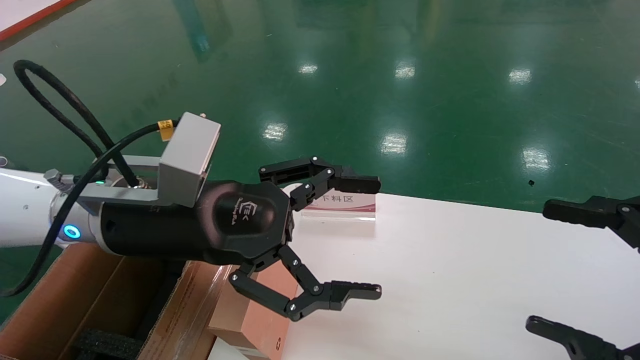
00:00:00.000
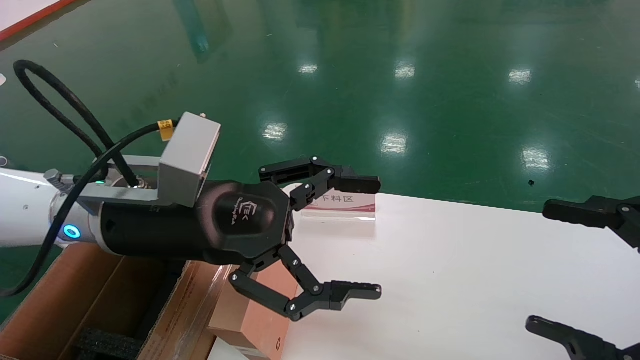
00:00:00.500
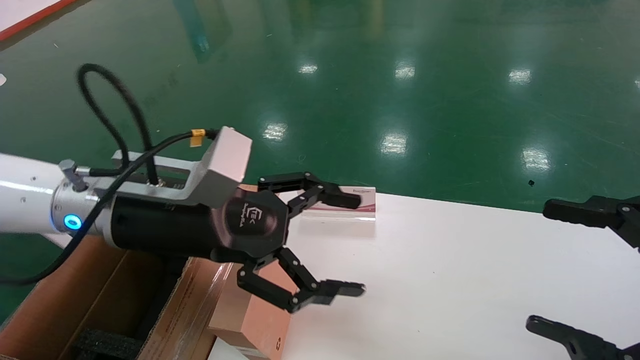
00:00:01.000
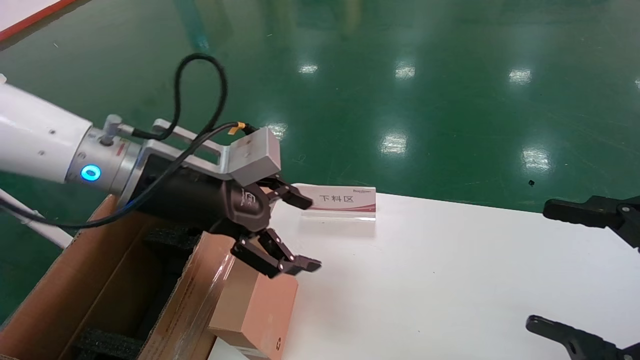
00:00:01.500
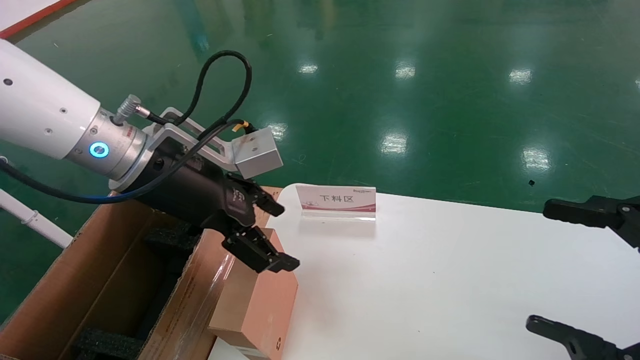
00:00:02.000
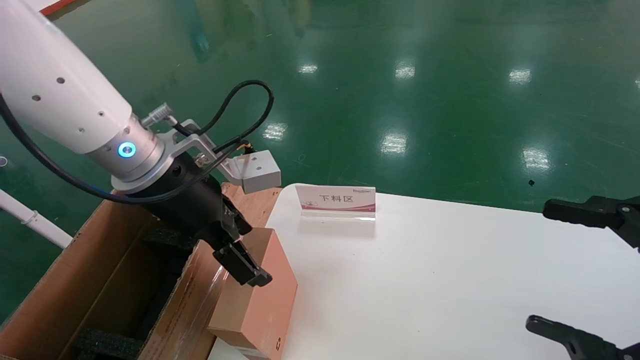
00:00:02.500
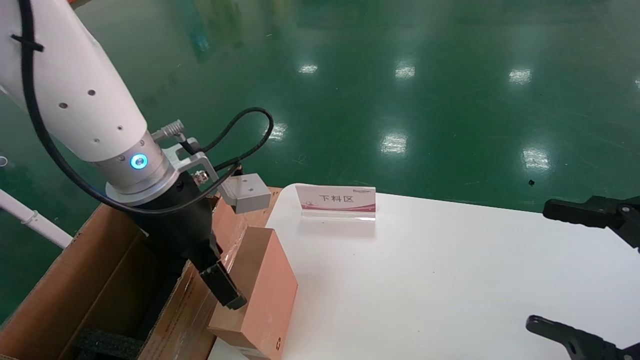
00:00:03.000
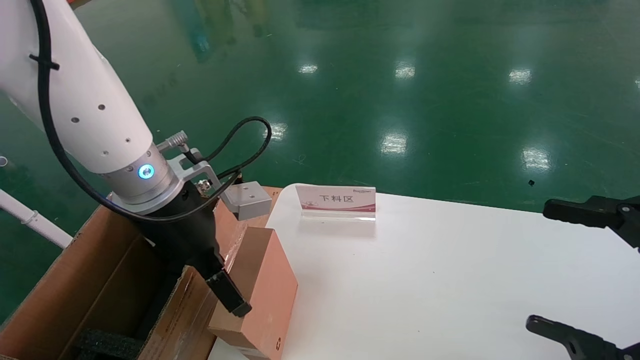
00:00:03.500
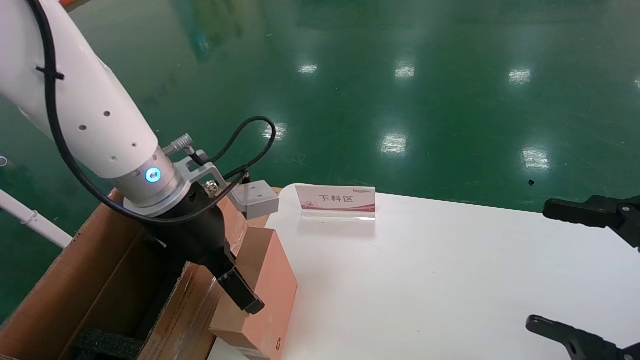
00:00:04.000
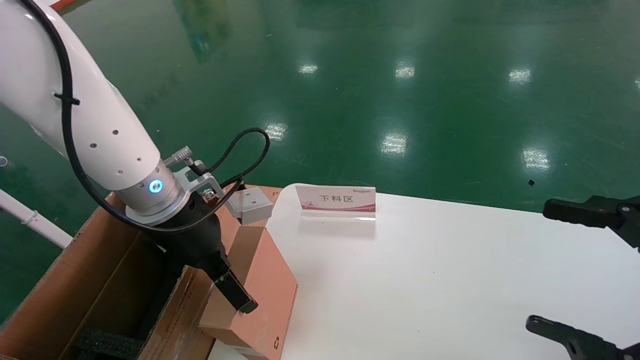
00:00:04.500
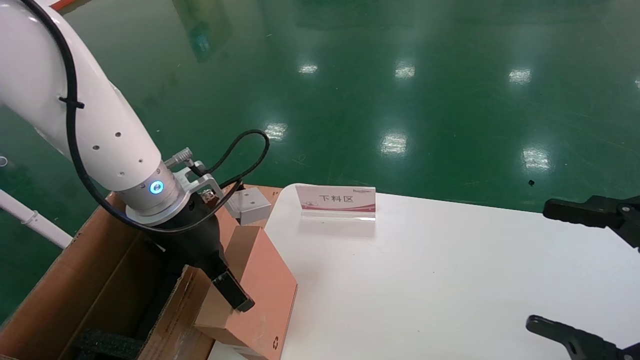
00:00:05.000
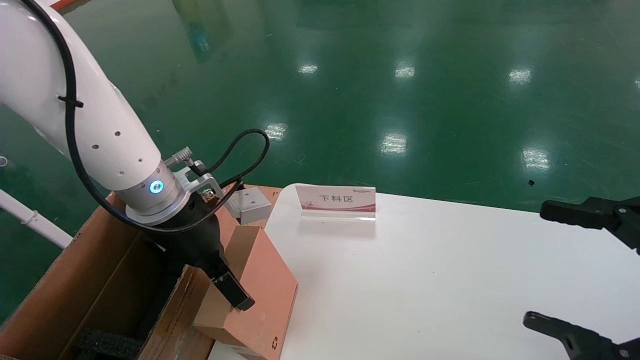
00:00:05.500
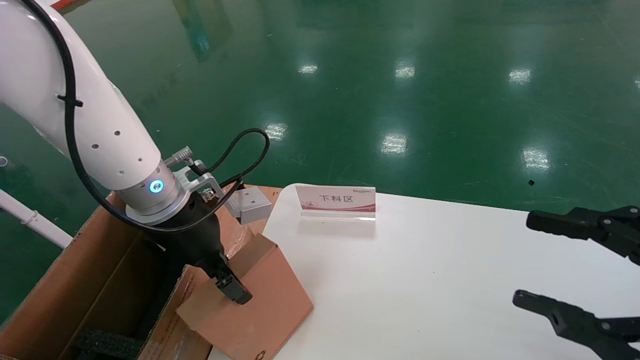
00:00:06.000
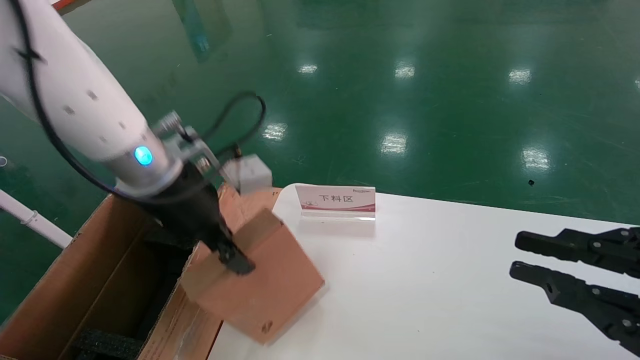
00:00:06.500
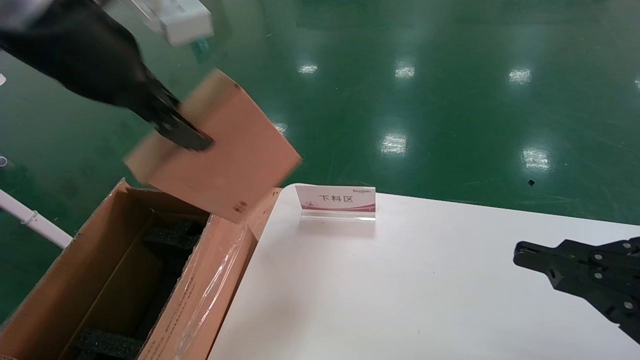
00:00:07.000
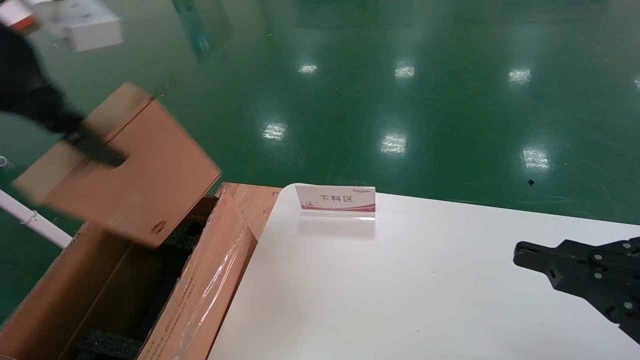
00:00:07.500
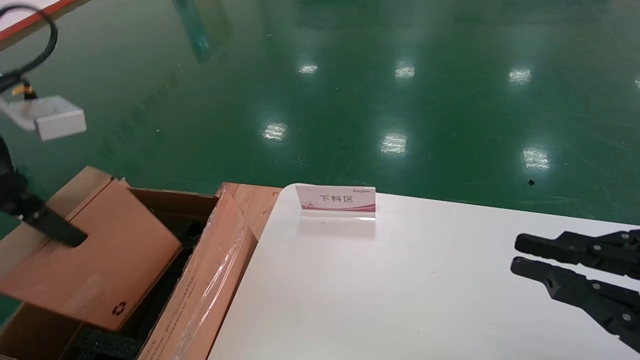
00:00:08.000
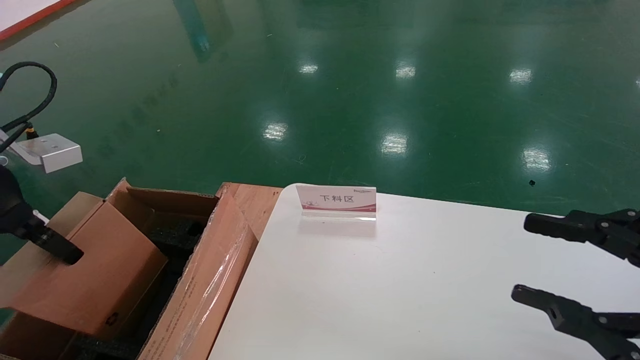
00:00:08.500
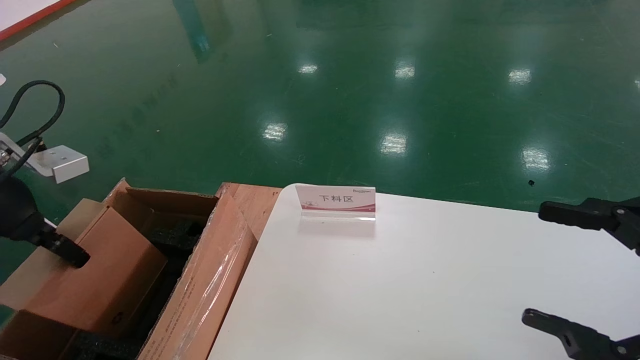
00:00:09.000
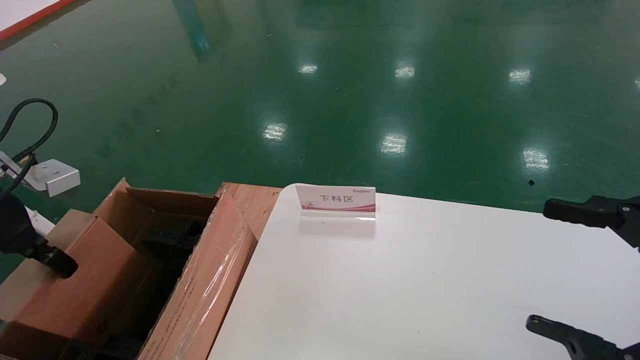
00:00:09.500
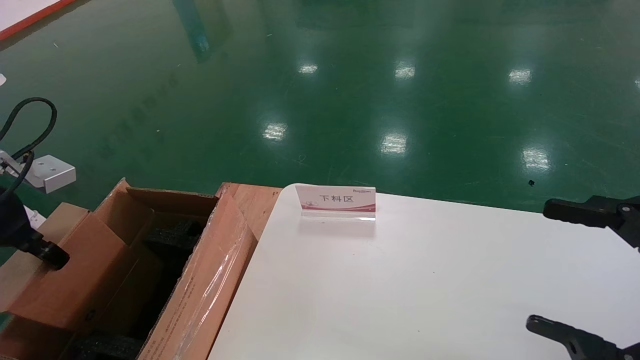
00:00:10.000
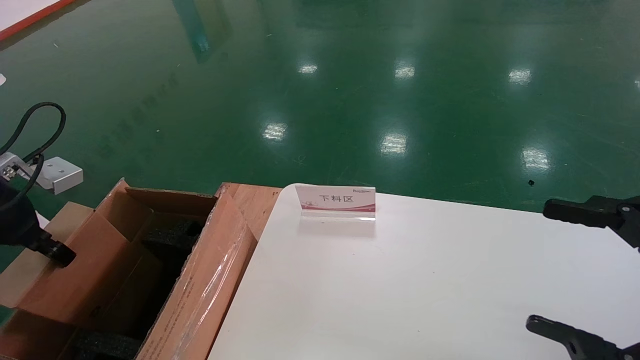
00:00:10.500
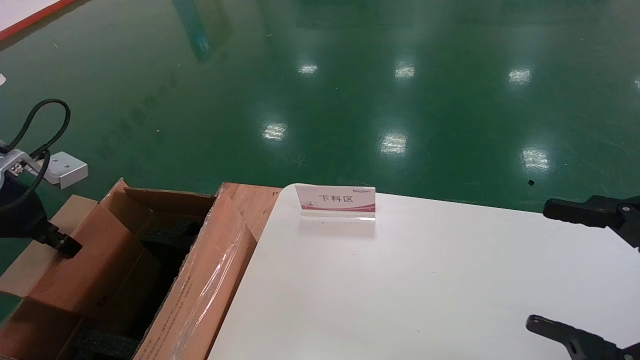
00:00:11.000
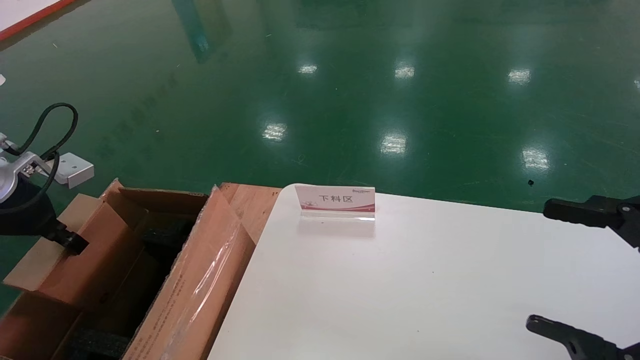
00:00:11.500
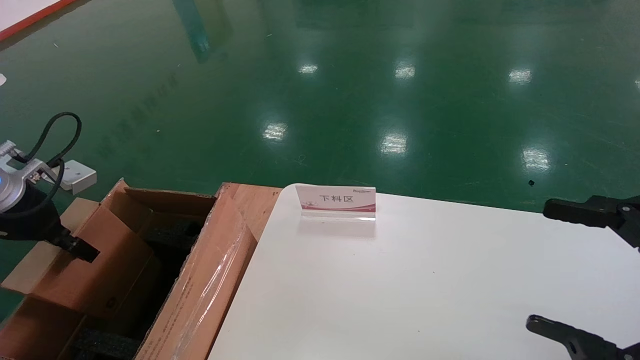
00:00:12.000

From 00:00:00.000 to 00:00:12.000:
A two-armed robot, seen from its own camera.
Task of the whole recording: pick up the small cardboard box and load it into the large cardboard box.
Step, from 00:00:01.000 to 00:00:06.000: Pick up the mouse and power cord box.
From 00:00:00.000 to 00:00:02.000: The left gripper moves some 5 cm.
From 00:00:04.000 to 00:00:06.000: The left gripper closes up.
From 00:00:06.000 to 00:00:08.000: The left gripper heads to the left, upward and backward, covering approximately 20 cm, and closes. Meanwhile the right gripper closes up.
From 00:00:08.000 to 00:00:10.000: The right gripper opens up, while the left gripper heads downward and to the left, covering some 15 cm.
From 00:00:10.000 to 00:00:12.000: The left gripper changes place by some 5 cm.

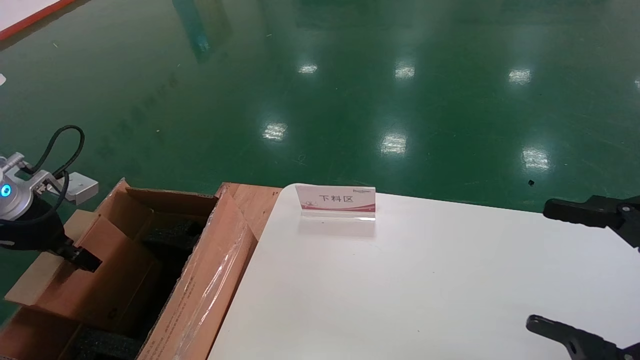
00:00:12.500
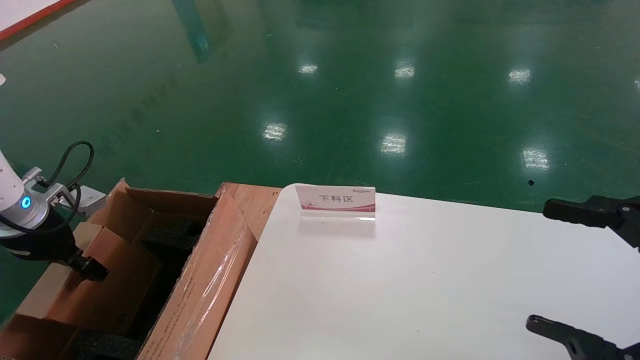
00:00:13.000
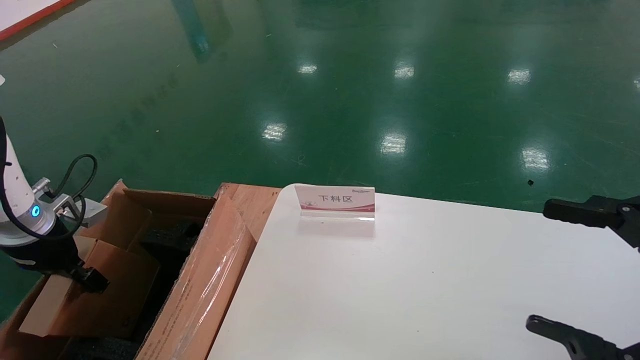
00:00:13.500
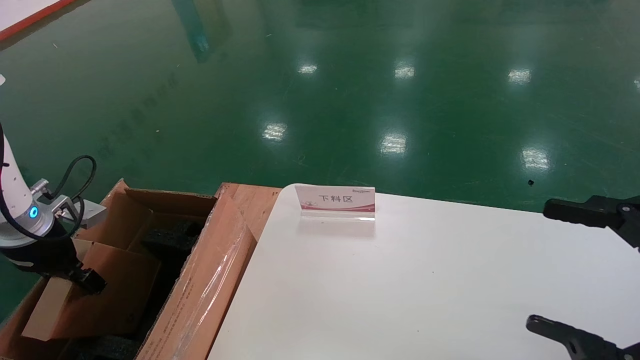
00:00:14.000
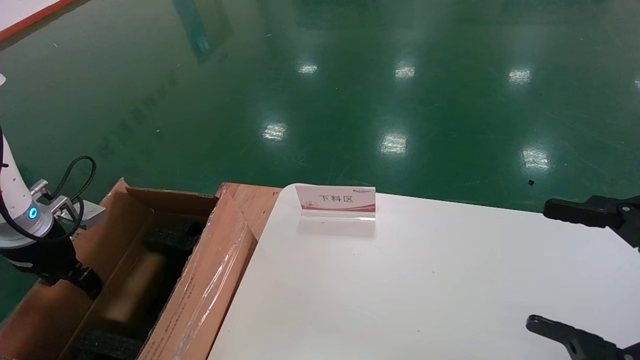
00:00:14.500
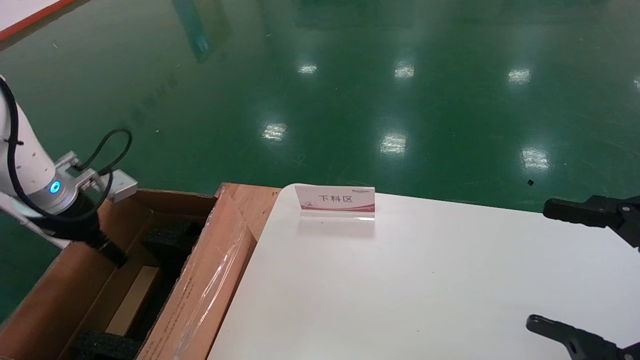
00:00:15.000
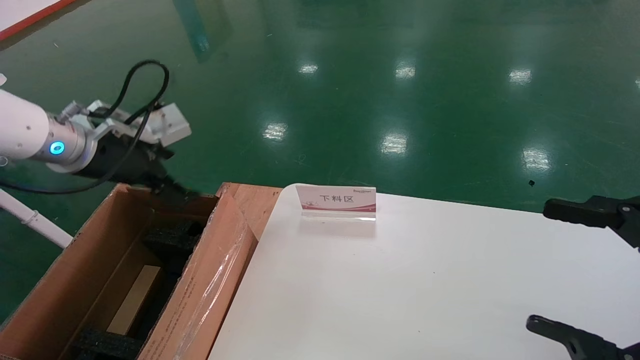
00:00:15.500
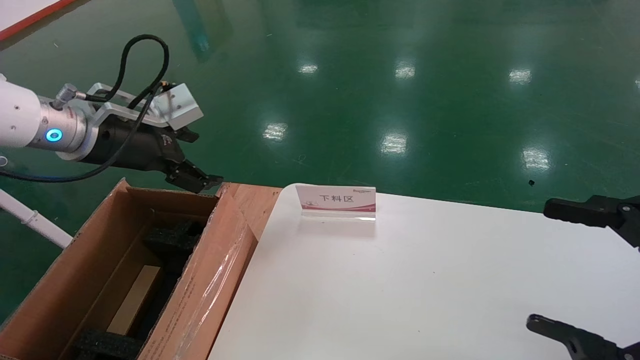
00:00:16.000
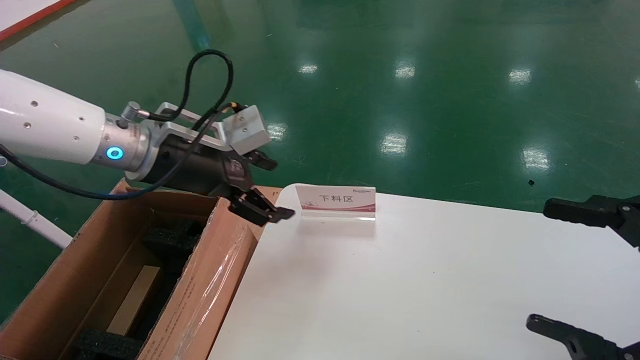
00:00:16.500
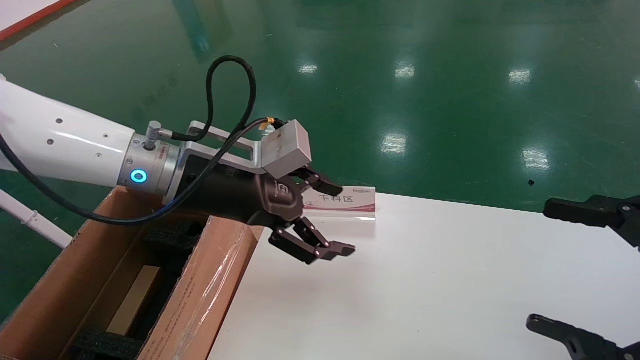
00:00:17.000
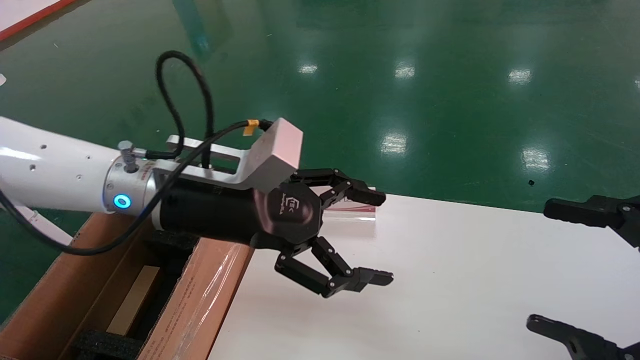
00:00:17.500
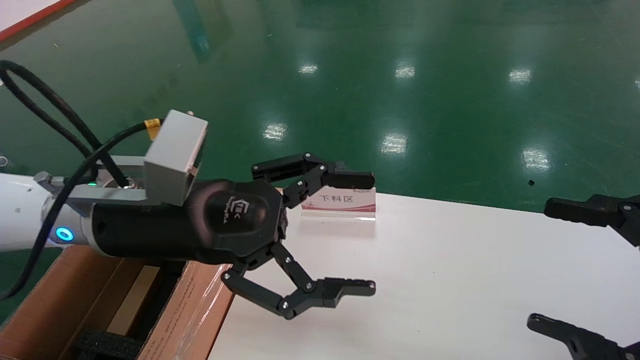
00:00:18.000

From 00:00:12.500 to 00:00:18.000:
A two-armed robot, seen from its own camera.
Task of the whole recording: pick up the small cardboard box and load it into the large cardboard box.
Step, from 00:00:12.500 to 00:00:14.500: Place the mouse and power cord box into the case.
From 00:00:12.500 to 00:00:14.500: The left gripper ends up roughly 5 cm from where it was, and opens.
From 00:00:14.500 to 00:00:16.000: The left gripper shifts about 20 cm to the right and upward, and opens up.
From 00:00:16.000 to 00:00:18.000: The left gripper heads to the right and backward, covering about 15 cm.

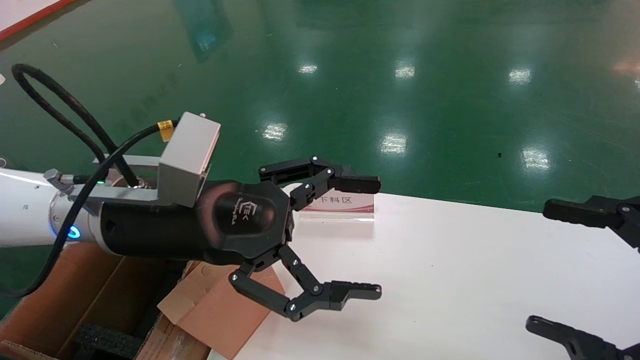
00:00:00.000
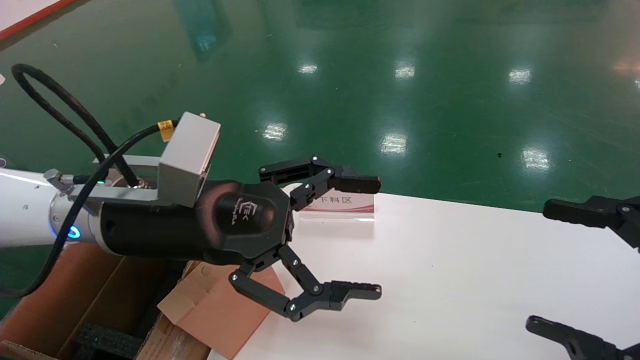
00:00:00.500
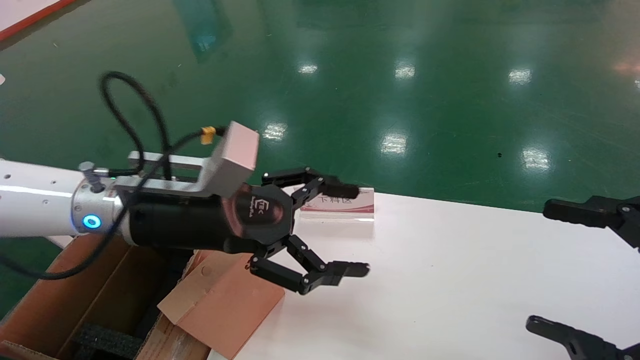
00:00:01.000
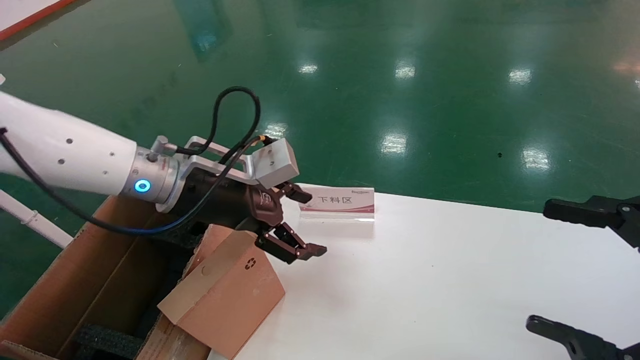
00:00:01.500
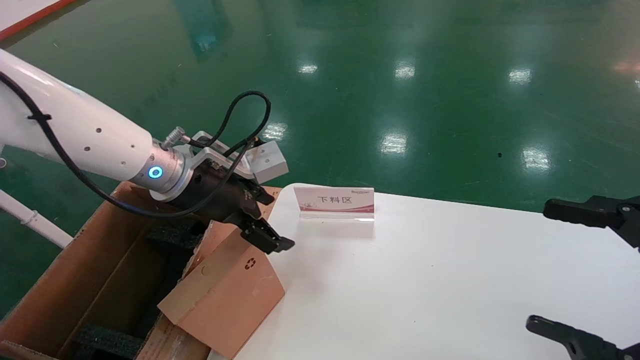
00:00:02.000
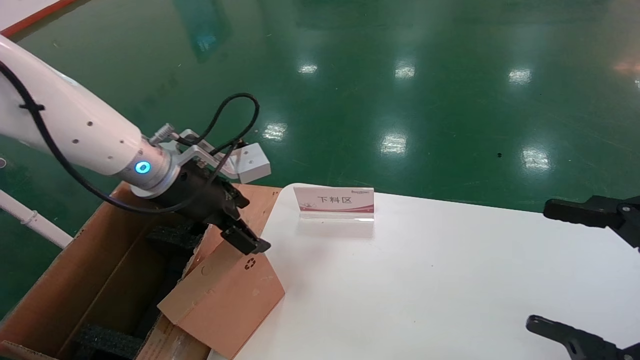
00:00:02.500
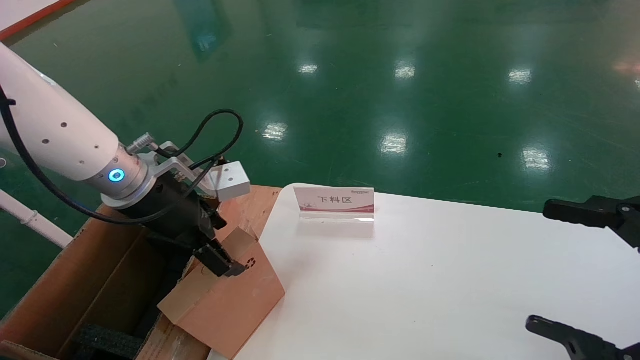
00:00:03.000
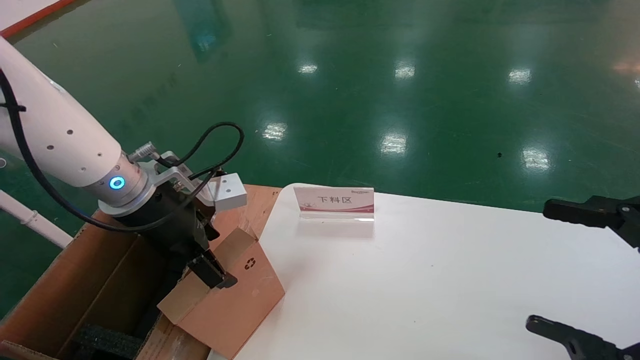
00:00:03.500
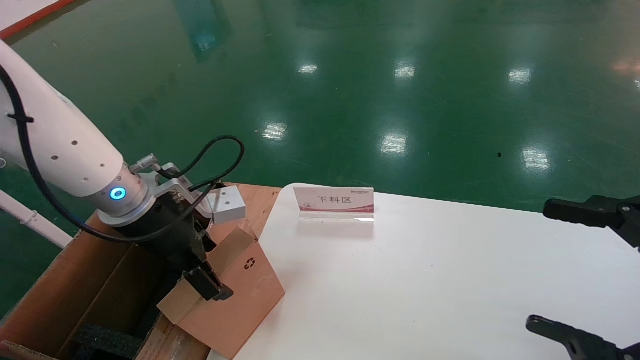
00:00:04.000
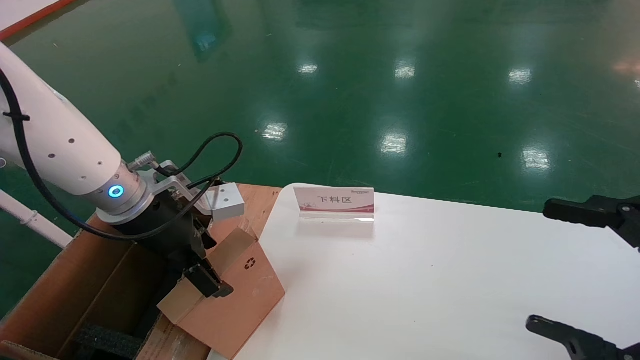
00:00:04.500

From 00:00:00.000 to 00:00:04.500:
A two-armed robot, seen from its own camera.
Task of the whole recording: pick up the small cardboard box and load it into the large cardboard box.
From 00:00:00.000 to 00:00:02.000: The left gripper is displaced forward by some 10 cm.
From 00:00:02.000 to 00:00:04.500: The left gripper shifts by approximately 5 cm.
